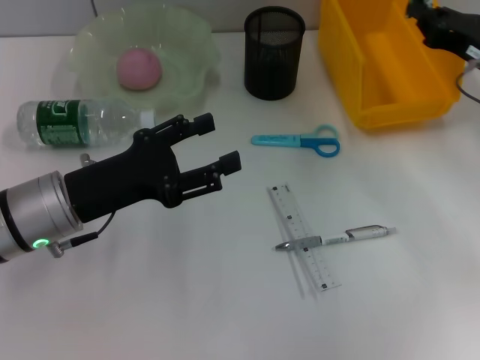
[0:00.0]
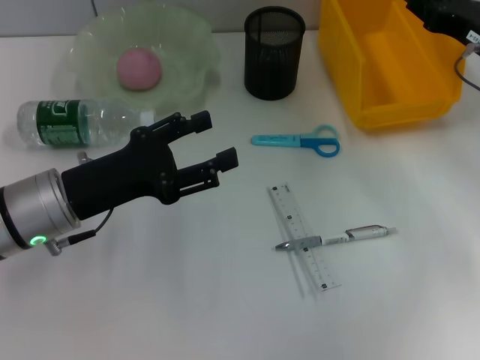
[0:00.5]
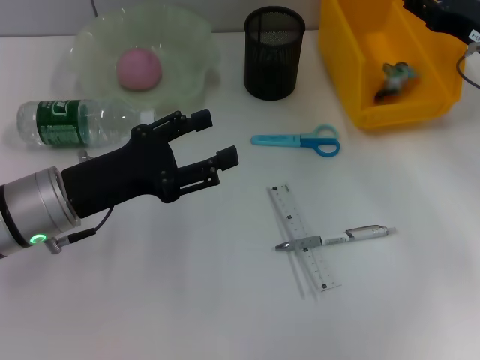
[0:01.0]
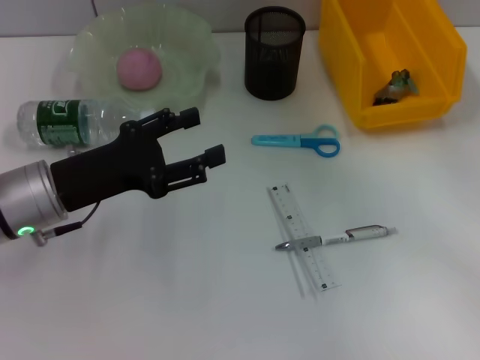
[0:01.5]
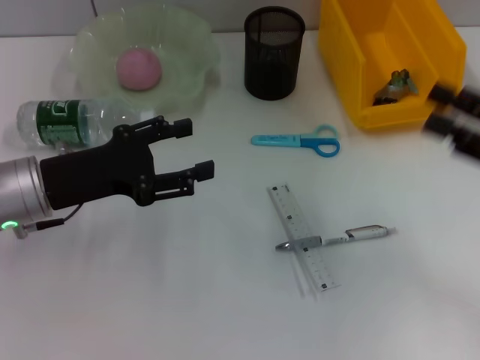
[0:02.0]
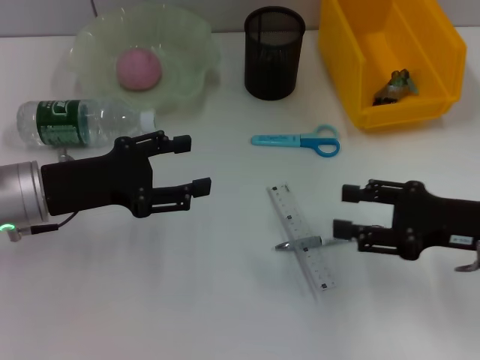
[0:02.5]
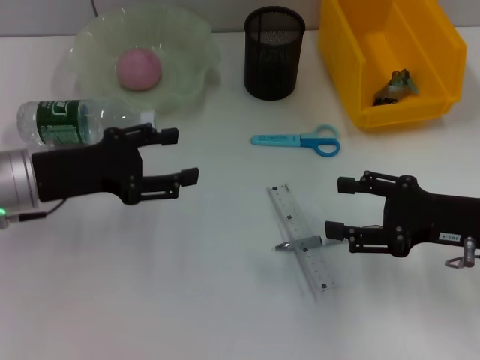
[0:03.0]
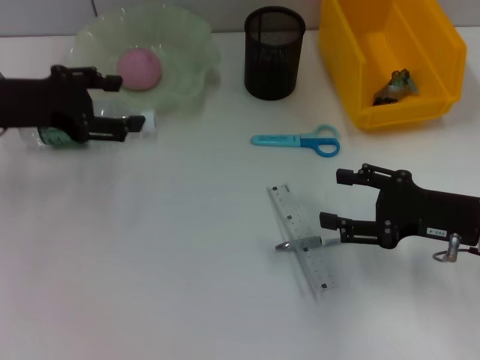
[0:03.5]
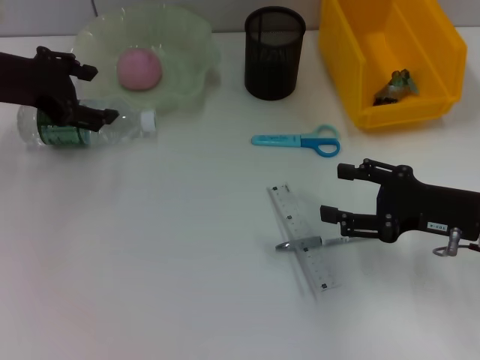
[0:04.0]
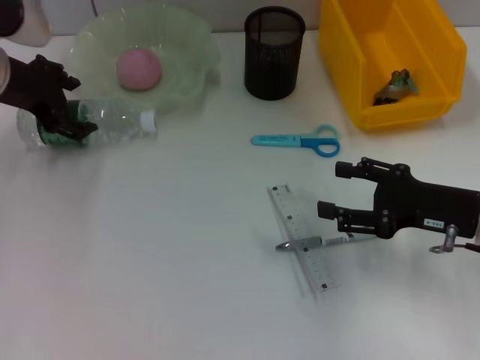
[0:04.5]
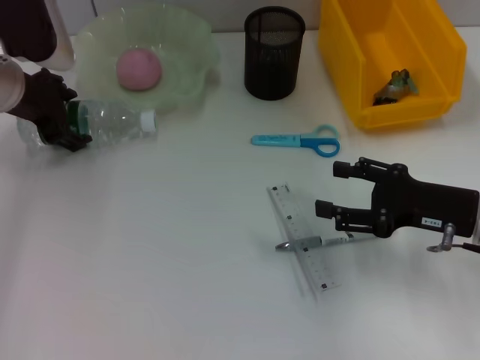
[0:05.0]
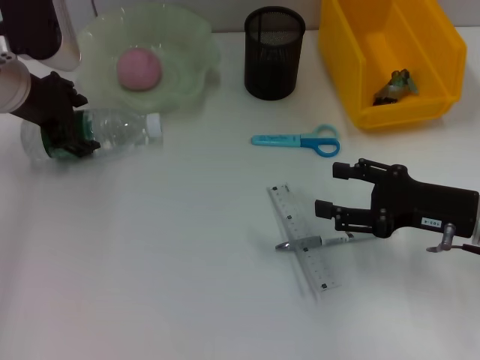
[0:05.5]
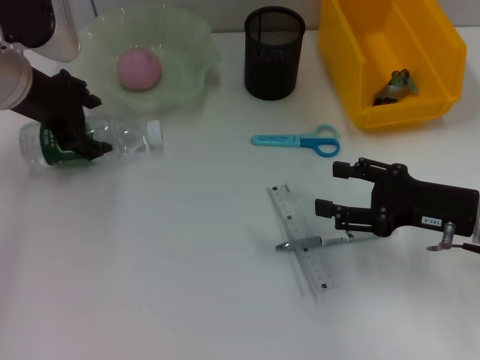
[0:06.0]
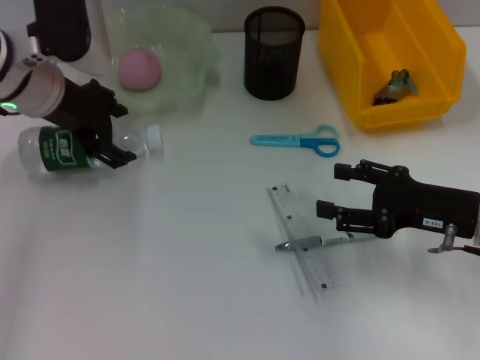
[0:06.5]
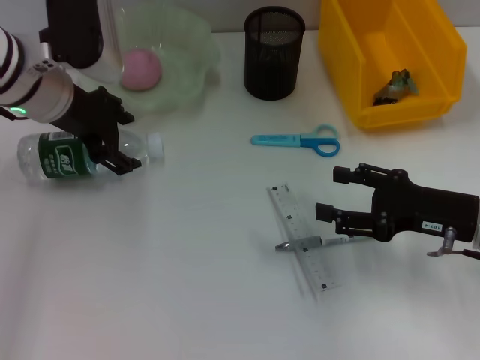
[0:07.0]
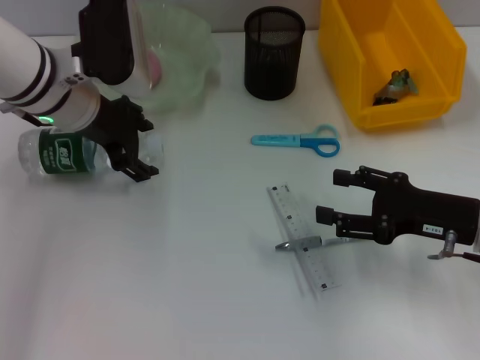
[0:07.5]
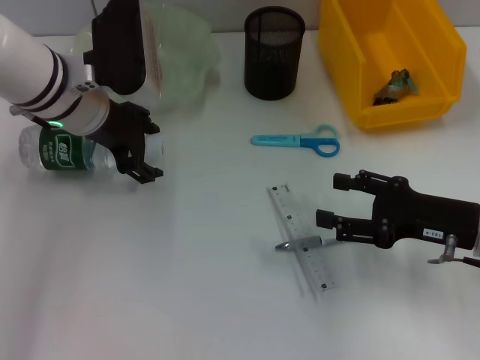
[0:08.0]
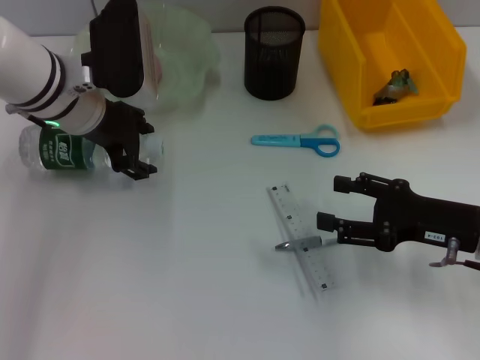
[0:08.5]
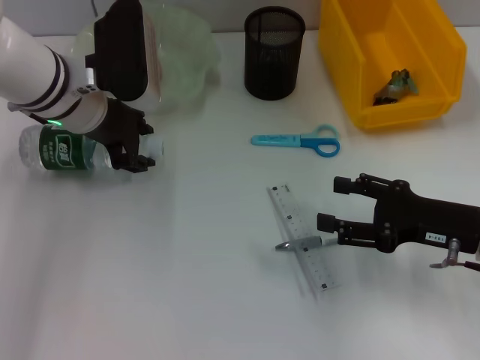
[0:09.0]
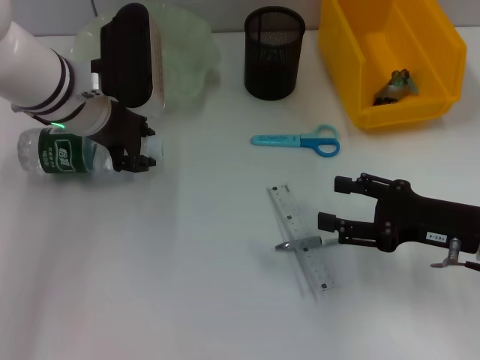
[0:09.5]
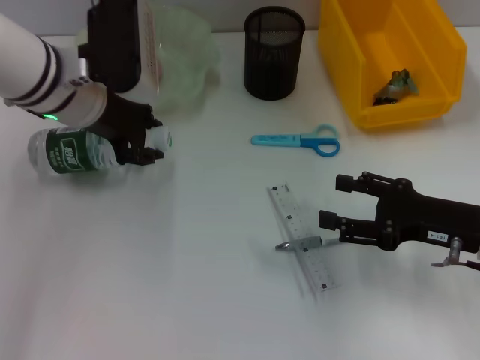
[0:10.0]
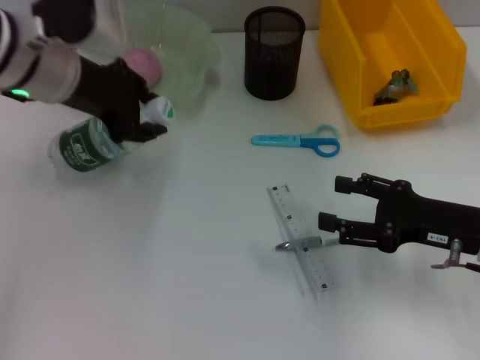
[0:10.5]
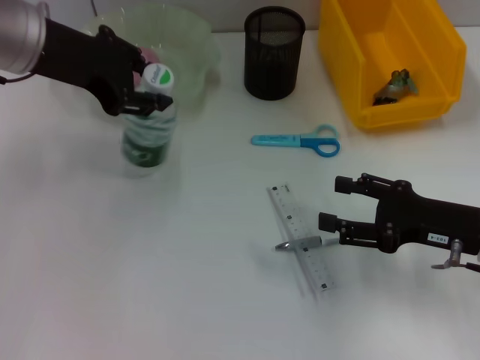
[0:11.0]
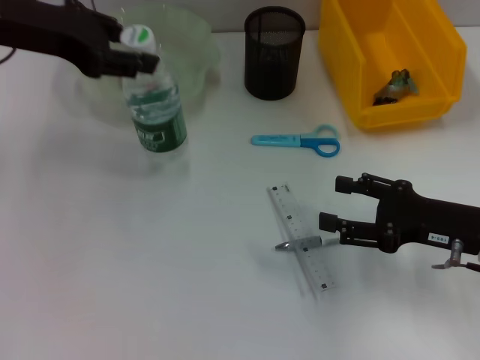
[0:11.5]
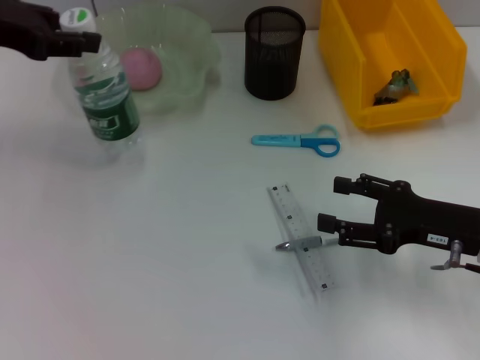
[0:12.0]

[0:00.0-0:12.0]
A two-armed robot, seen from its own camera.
Step, 1.5 to 9.0 s: Grab the water bottle with the left hand.
0.0 to 2.0 s: The right gripper heads backward, covering about 15 cm, and opens its fingers.
2.0 to 4.0 s: The left gripper shifts about 15 cm upward and forward. Meanwhile the right gripper heads downward and to the left, covering roughly 10 cm.
6.0 to 8.0 s: The left gripper shifts about 5 cm to the right.
8.0 to 10.0 s: The left gripper closes its fingers.
10.0 to 12.0 s: The left gripper heads to the left and upward, covering approximately 15 cm.

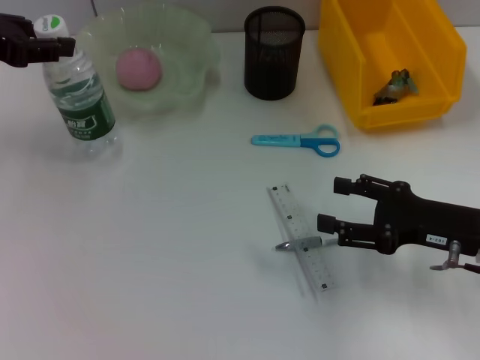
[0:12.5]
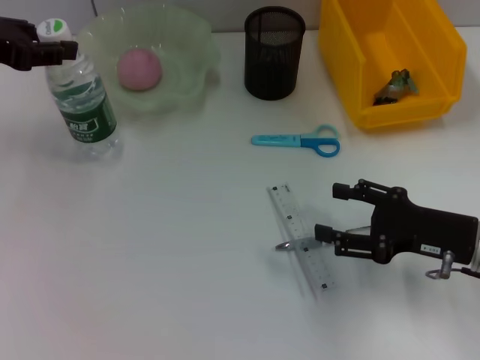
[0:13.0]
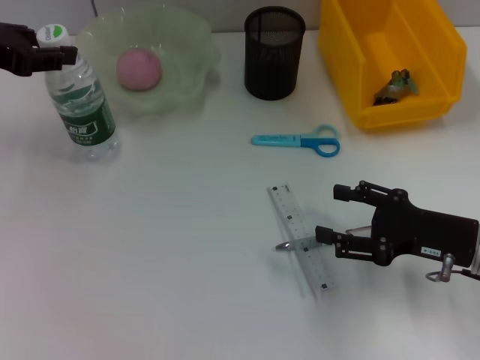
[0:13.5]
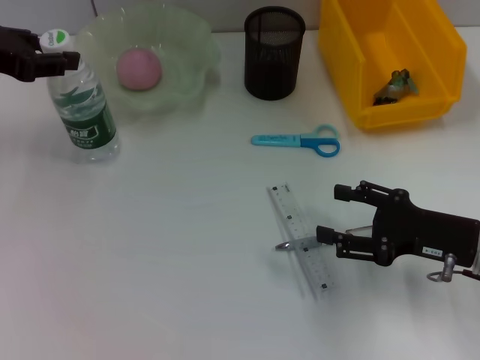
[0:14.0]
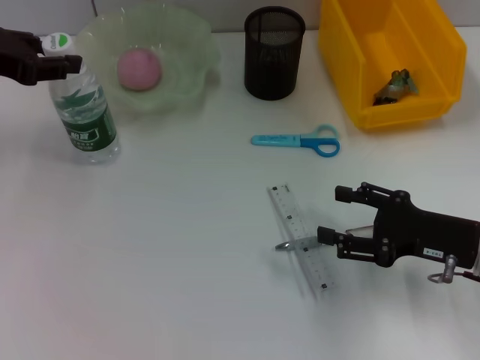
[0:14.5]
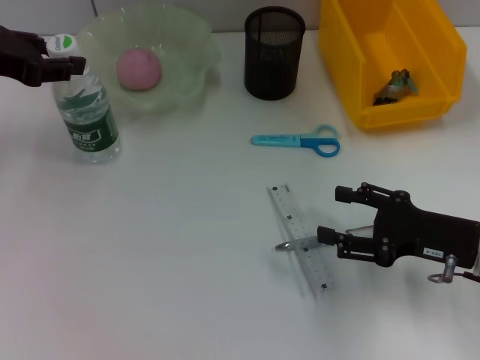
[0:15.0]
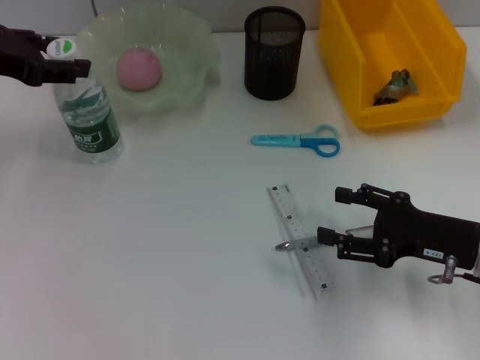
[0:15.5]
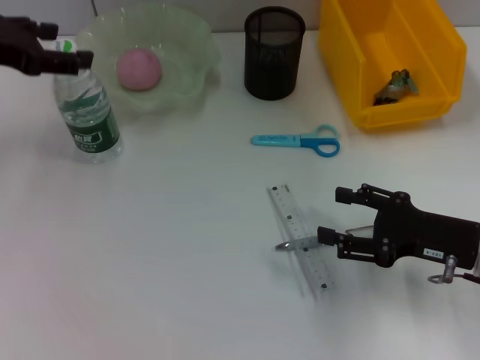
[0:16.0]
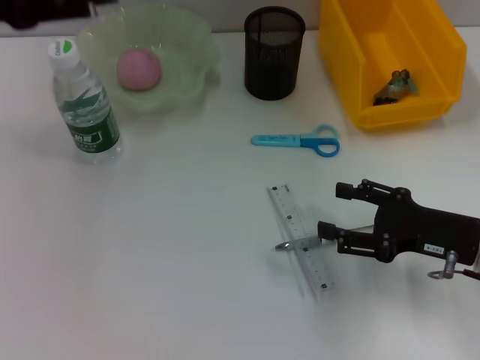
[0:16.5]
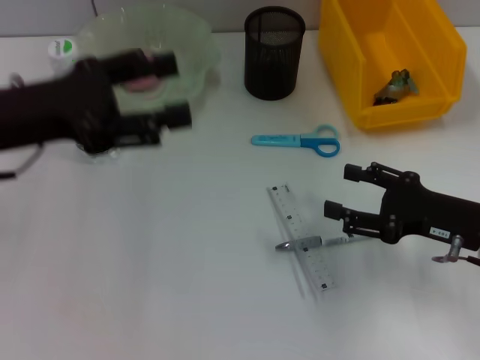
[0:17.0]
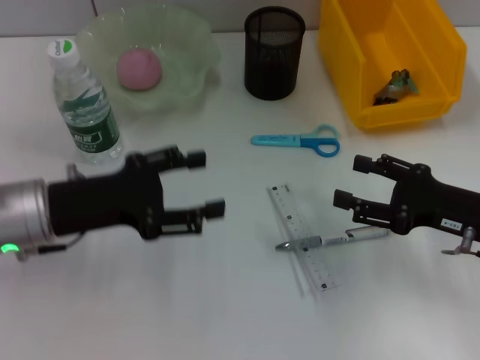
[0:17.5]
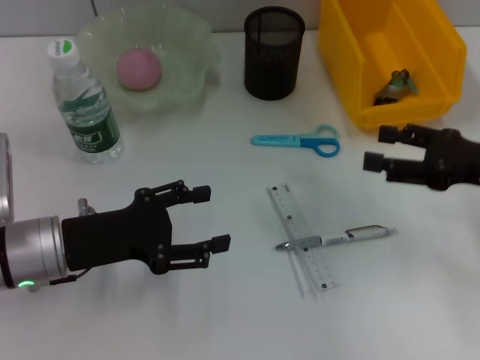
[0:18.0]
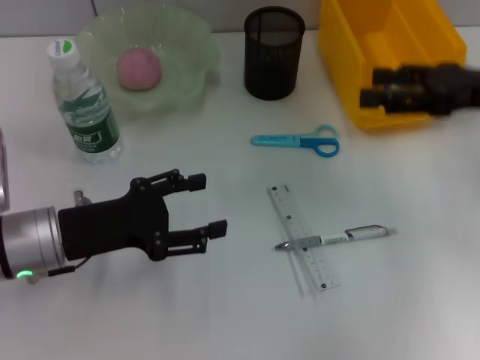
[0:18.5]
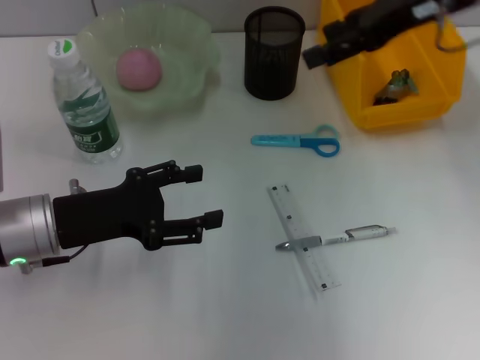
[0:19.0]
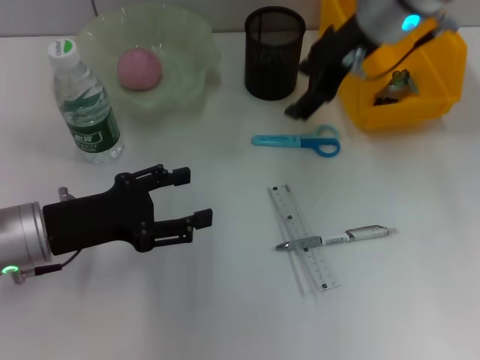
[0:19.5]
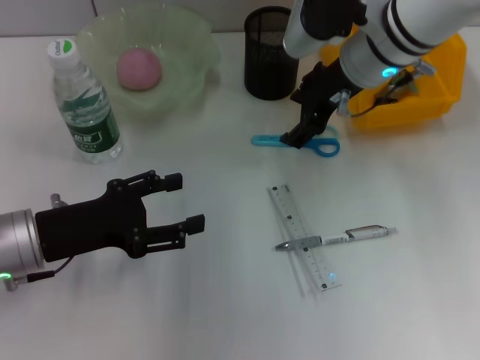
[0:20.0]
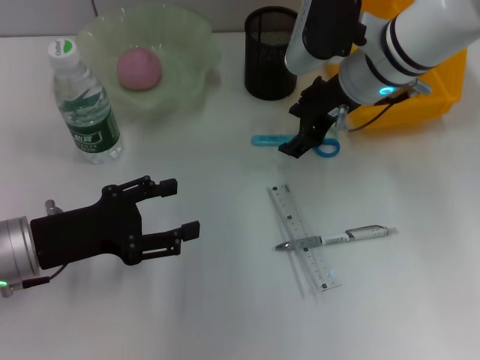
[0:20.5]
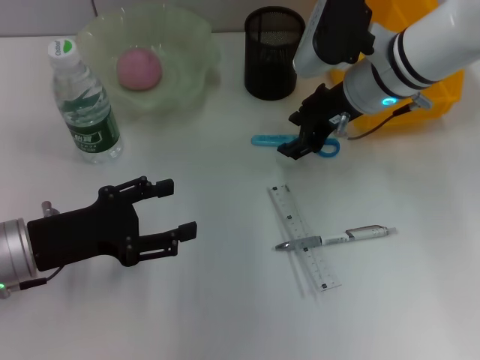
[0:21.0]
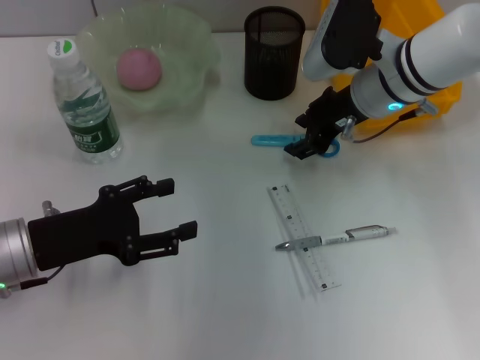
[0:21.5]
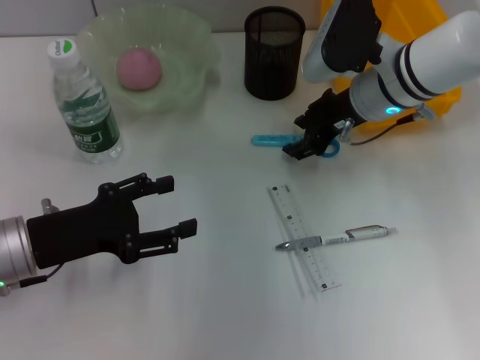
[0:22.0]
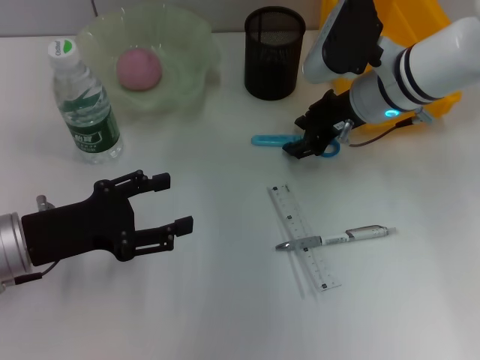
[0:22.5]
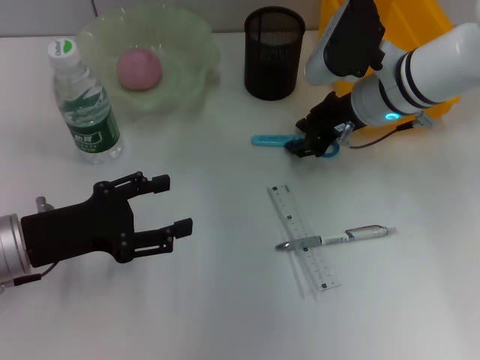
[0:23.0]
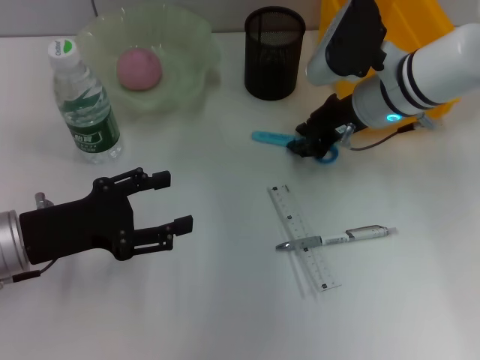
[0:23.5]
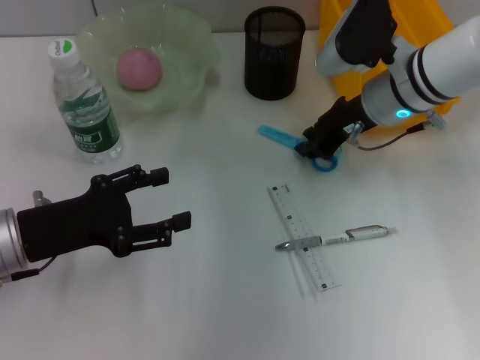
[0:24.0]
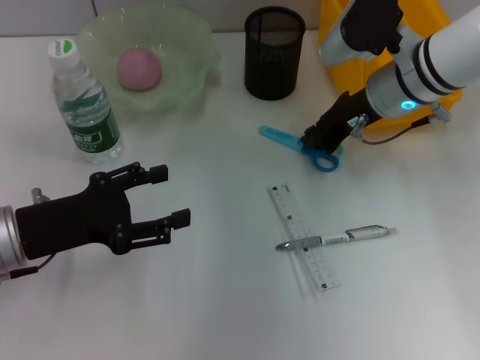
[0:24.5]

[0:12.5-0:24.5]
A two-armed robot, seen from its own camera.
Step, 12.5 to 15.0 s: Place the water bottle on the table with the left hand.
12.5 to 14.5 s: The grippers stay close to where they were, moving slightly.
14.5 to 16.5 s: The left gripper shifts by about 5 cm, and opens up.
16.5 to 18.5 s: The right gripper travels upward and forward by some 15 cm. Meanwhile the left gripper shifts roughly 20 cm downward.
18.5 to 20.5 s: The right gripper moves to the left and forward, roughly 20 cm.
20.5 to 22.5 s: The grippers move only a little.
22.5 to 24.5 s: The right gripper closes up.

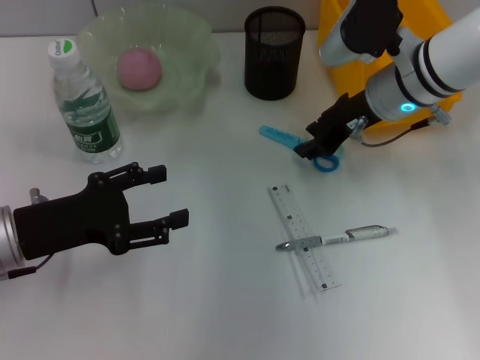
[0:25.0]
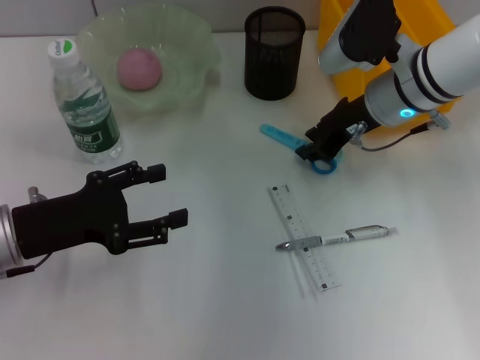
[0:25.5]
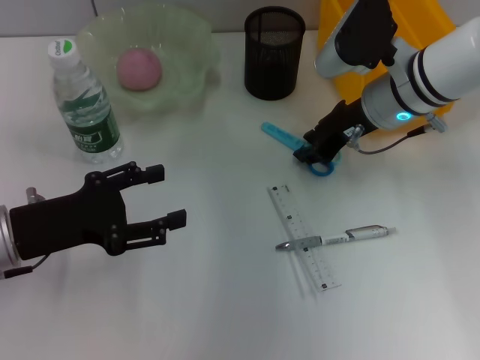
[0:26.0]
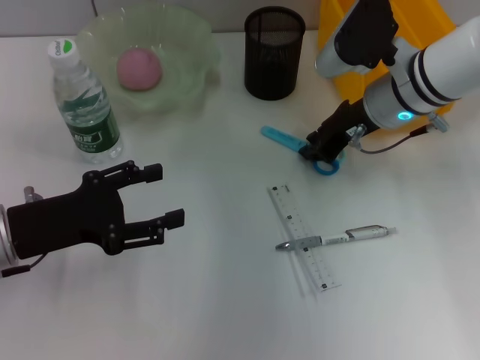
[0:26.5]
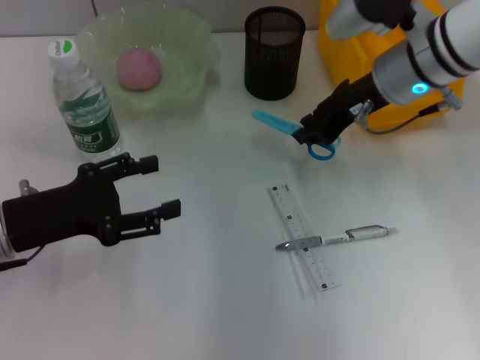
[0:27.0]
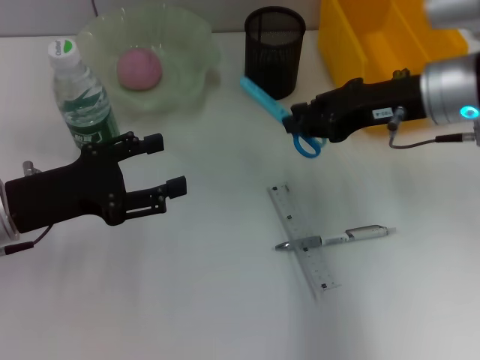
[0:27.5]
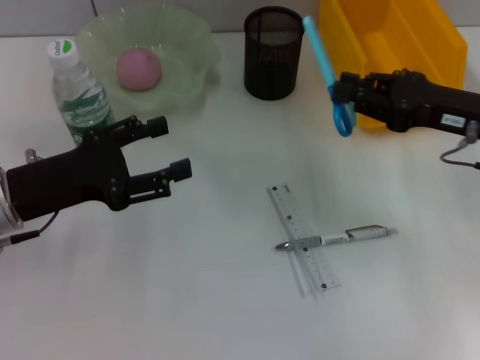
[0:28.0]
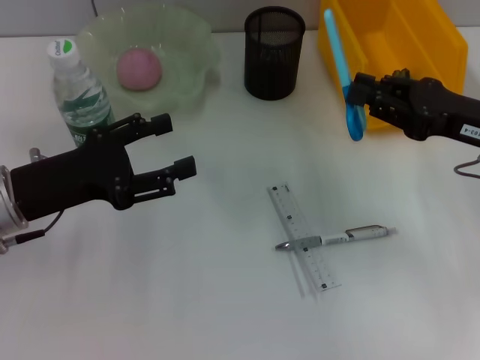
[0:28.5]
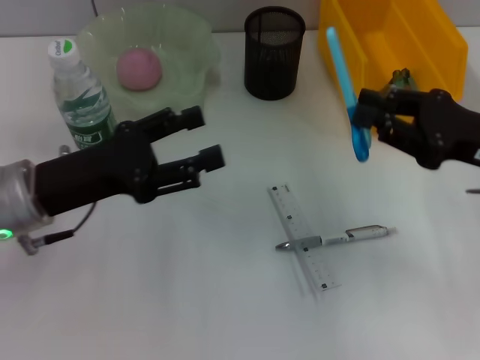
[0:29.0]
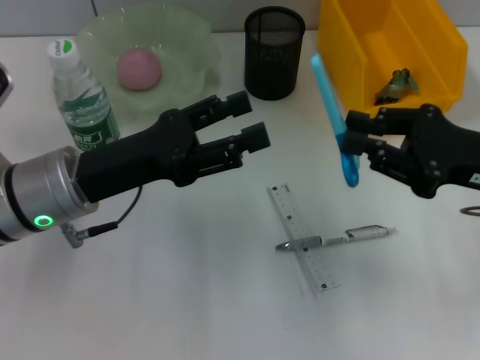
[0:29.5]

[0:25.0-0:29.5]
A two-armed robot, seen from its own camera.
25.0 to 27.0 s: The grippers move only a little.
27.0 to 29.5 s: The left gripper is displaced to the right by approximately 10 cm. The right gripper goes approximately 15 cm backward and to the right.
